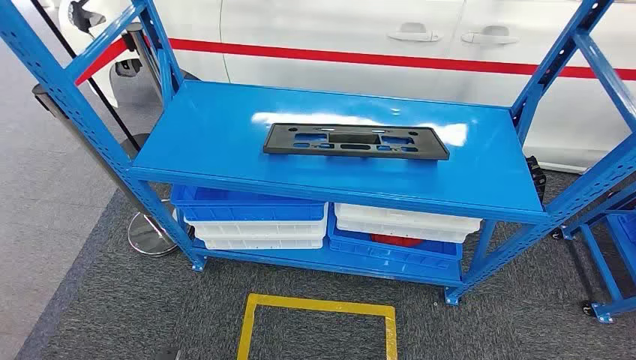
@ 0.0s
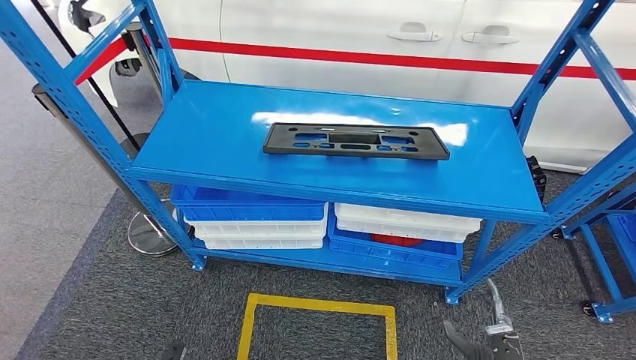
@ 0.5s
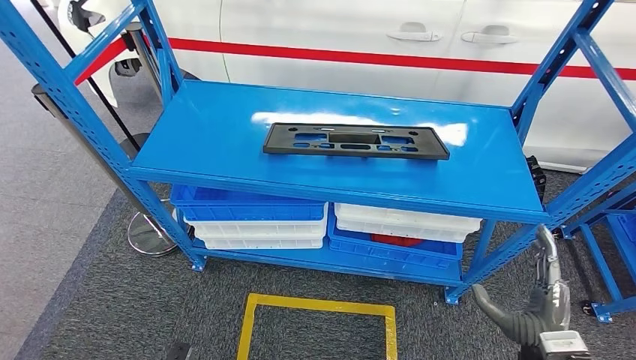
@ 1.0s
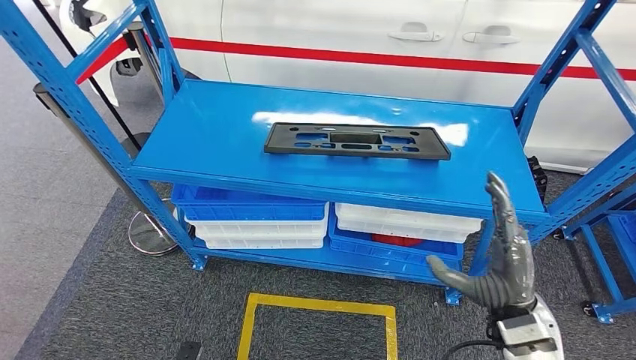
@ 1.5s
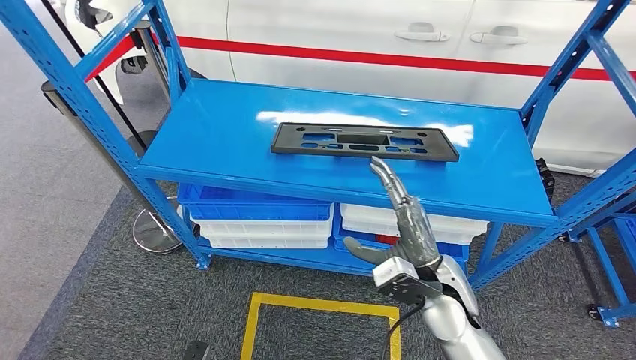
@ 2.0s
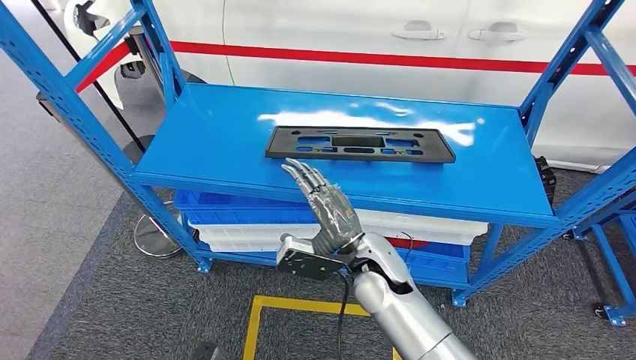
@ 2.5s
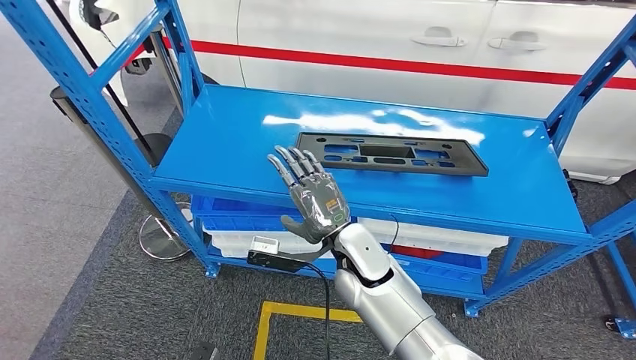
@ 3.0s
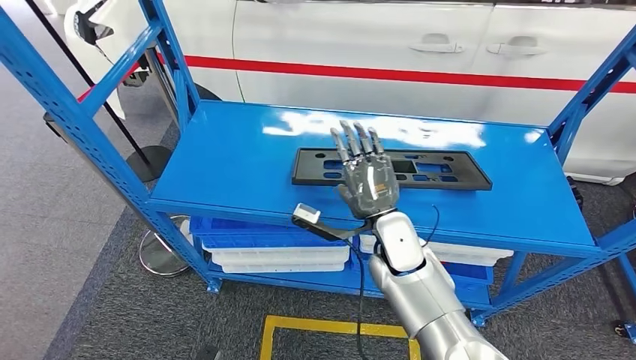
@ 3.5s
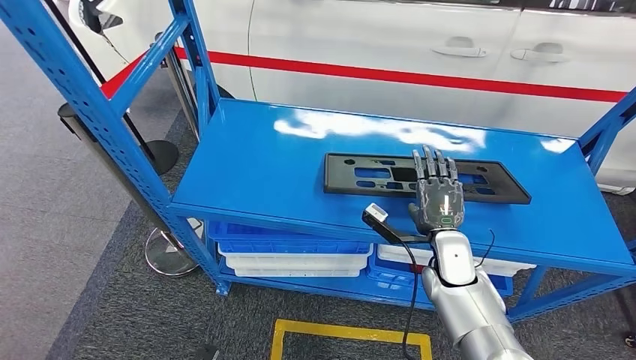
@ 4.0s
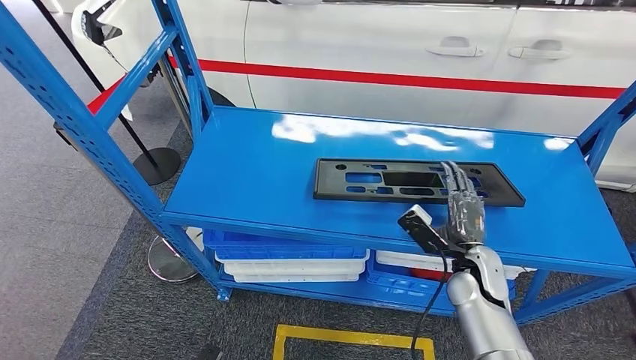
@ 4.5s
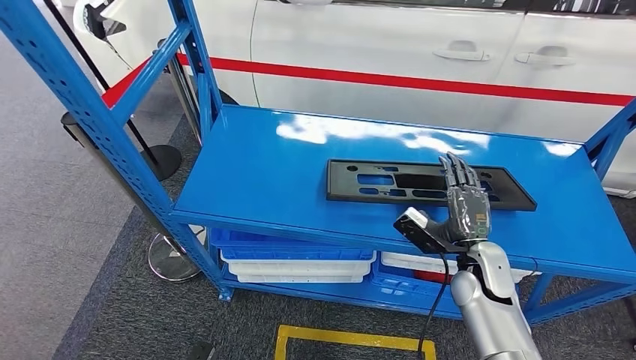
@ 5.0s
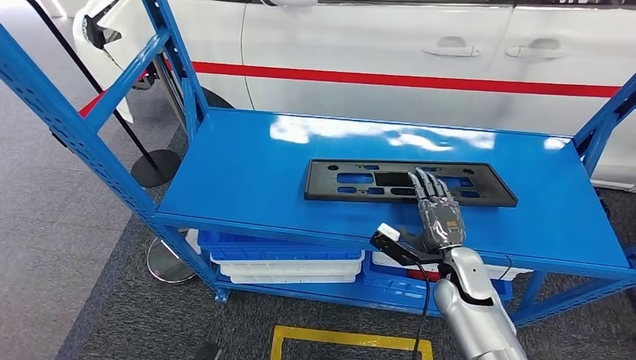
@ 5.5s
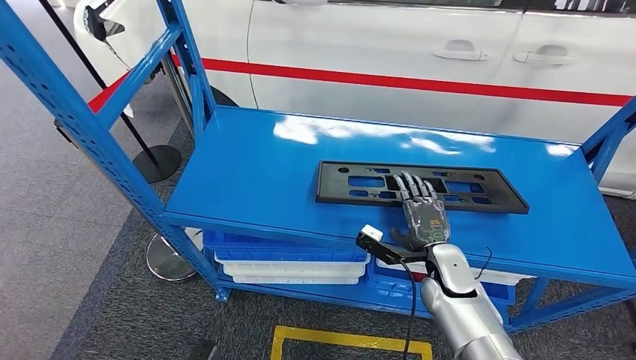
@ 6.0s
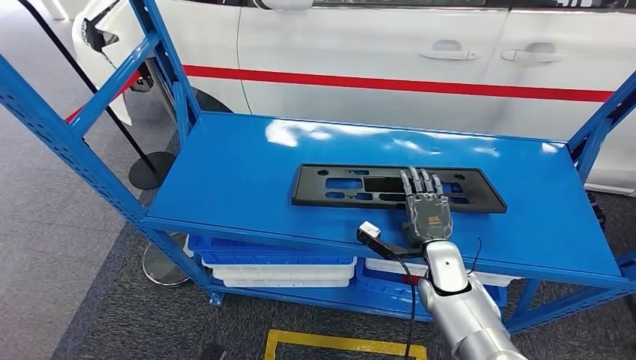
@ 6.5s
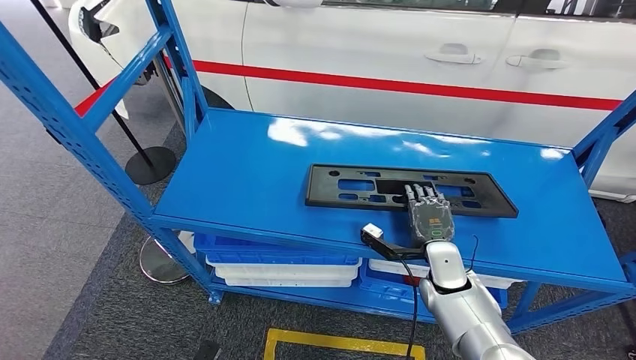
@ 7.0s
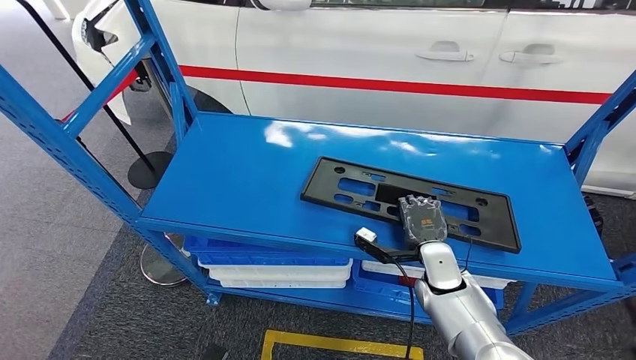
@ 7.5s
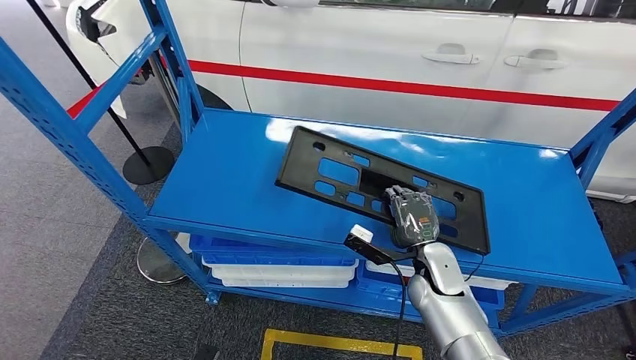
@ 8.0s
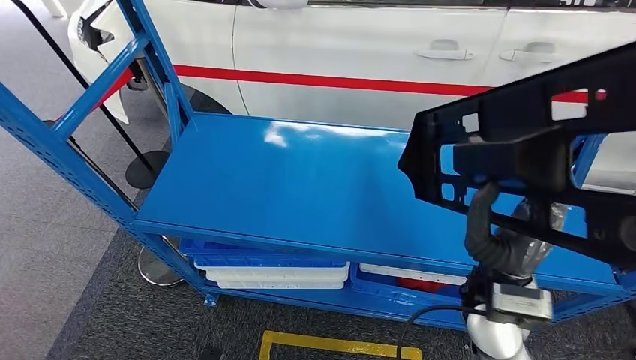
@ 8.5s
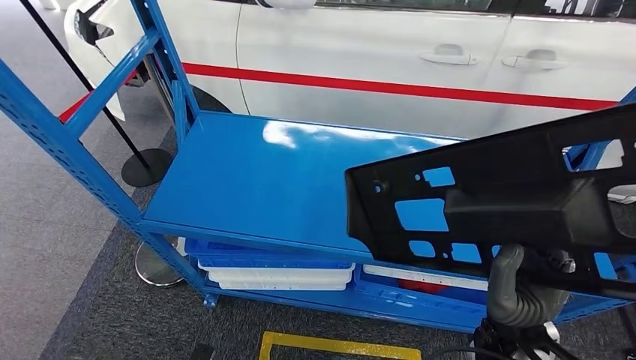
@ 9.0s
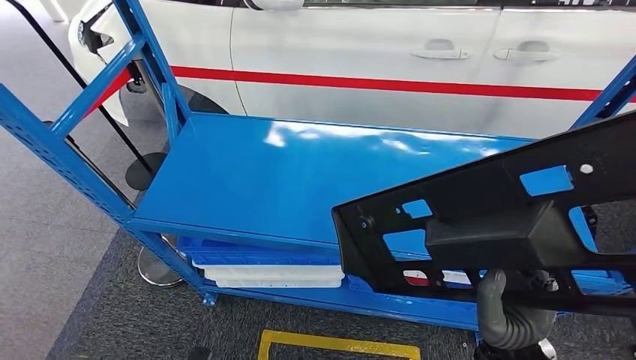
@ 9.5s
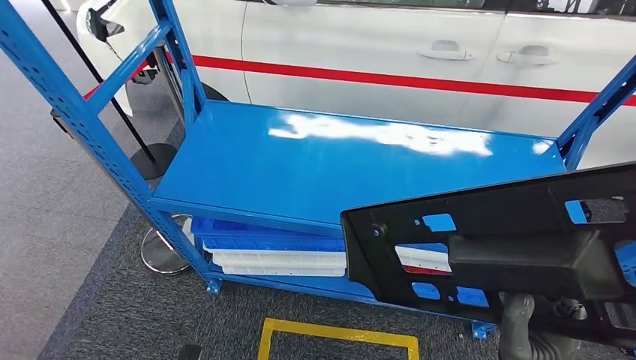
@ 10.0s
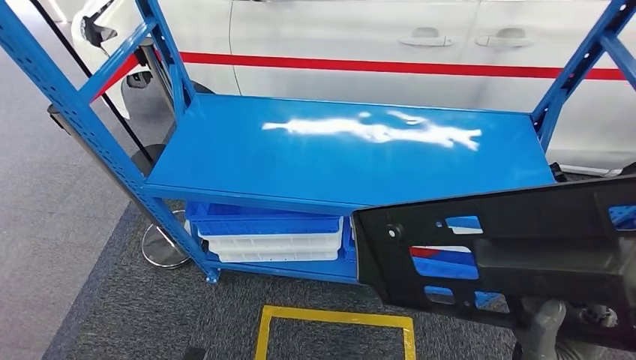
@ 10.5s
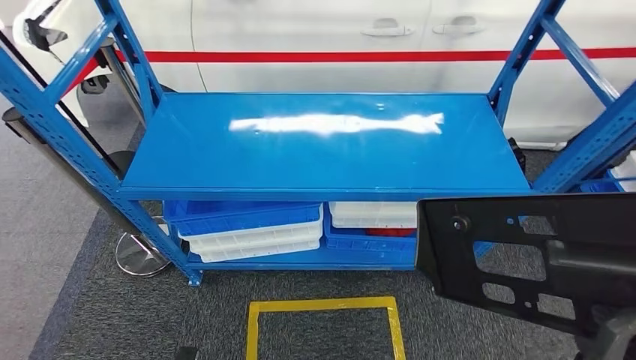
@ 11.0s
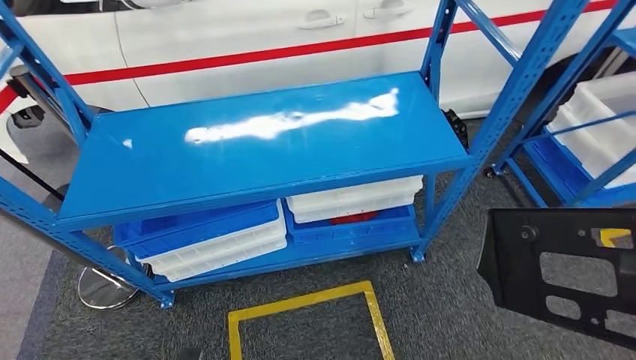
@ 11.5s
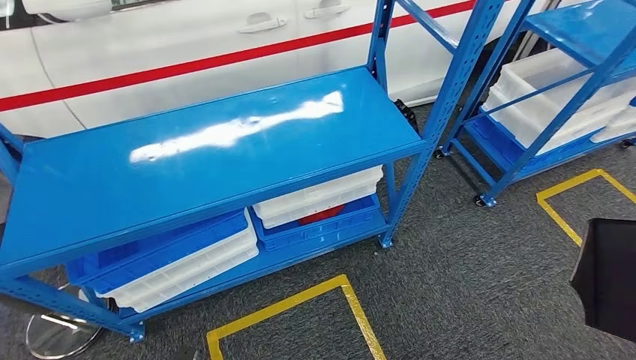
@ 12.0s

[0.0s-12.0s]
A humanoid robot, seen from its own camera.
Step, 0.0s to 10.0s: Pick up the large material from the shelf.

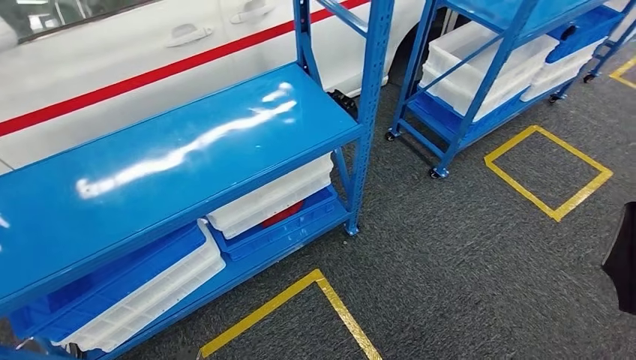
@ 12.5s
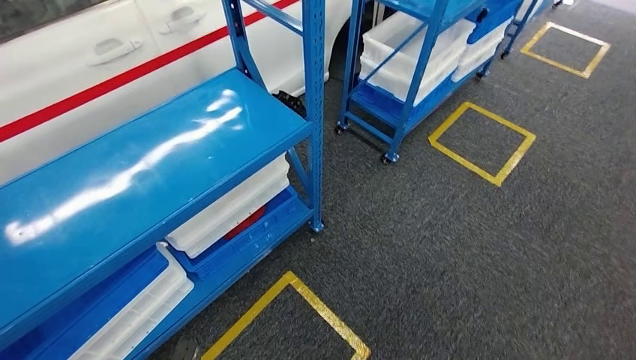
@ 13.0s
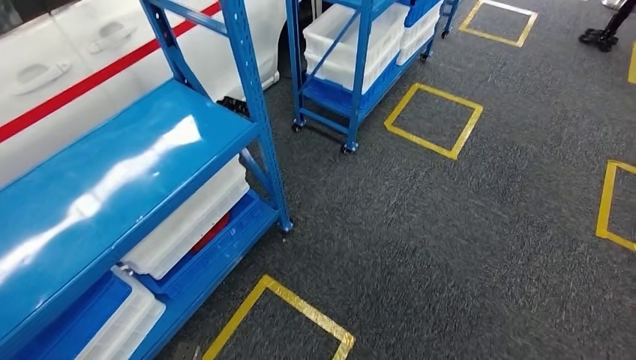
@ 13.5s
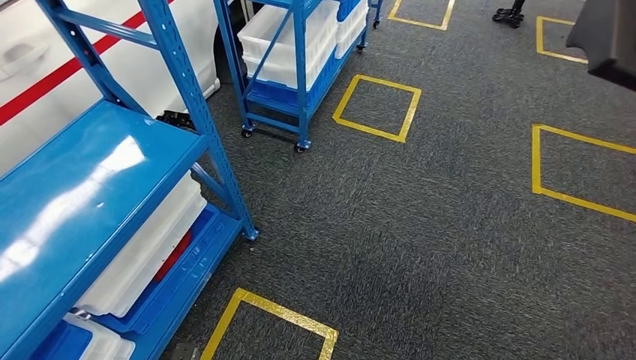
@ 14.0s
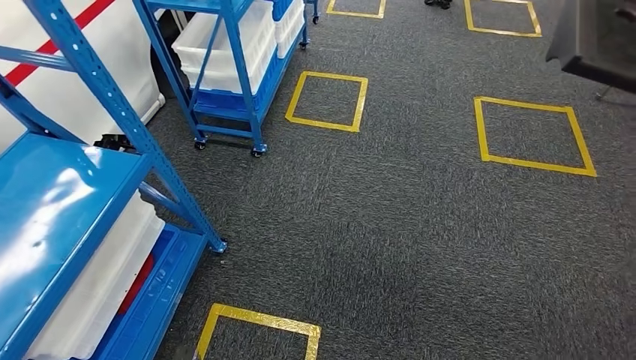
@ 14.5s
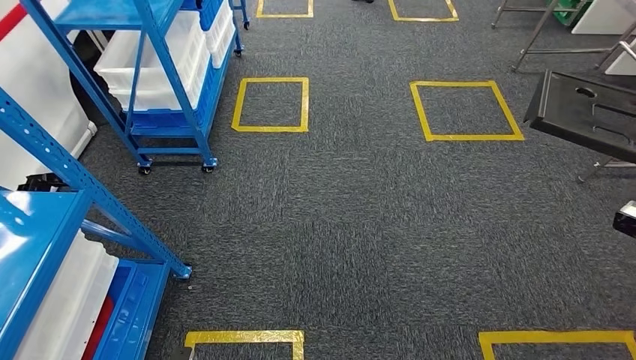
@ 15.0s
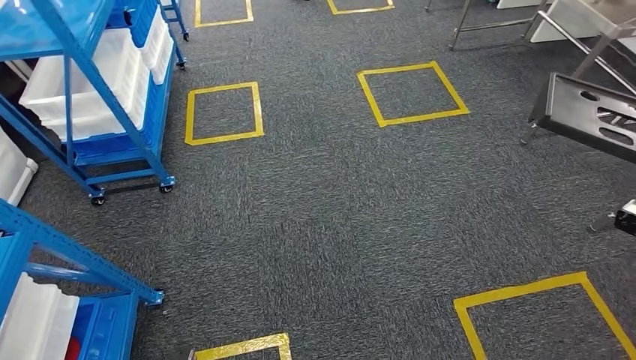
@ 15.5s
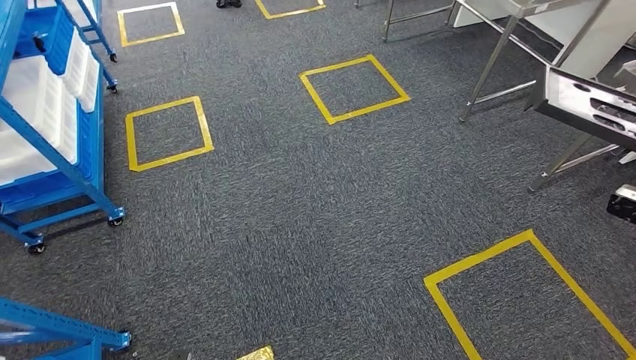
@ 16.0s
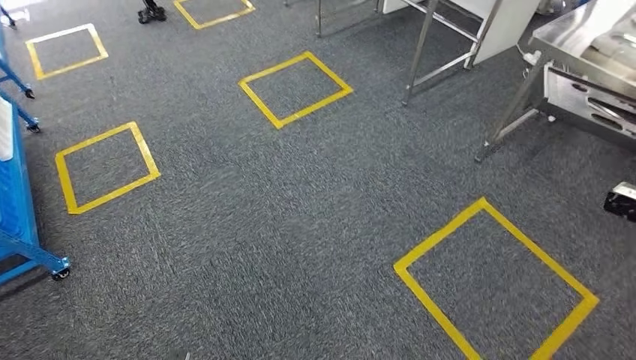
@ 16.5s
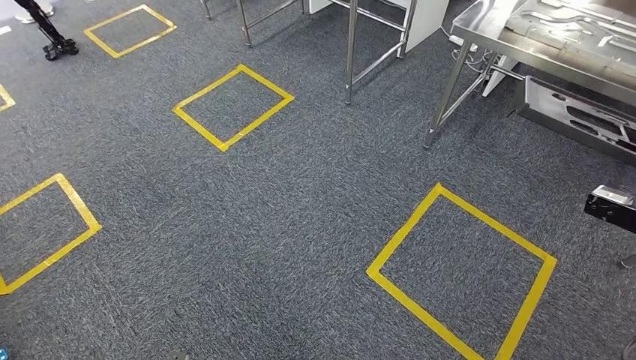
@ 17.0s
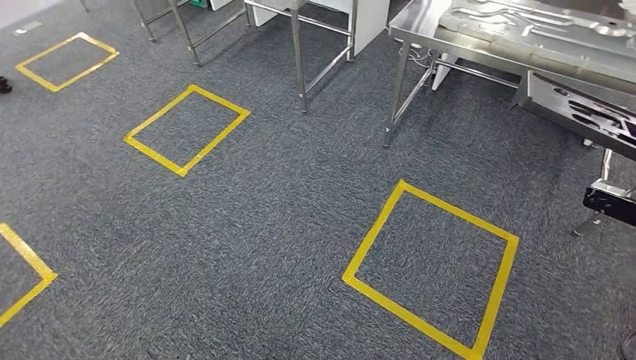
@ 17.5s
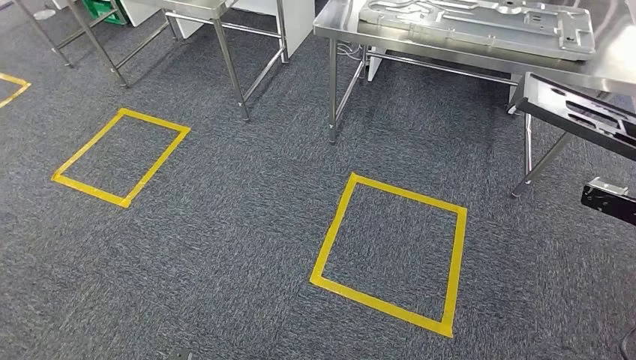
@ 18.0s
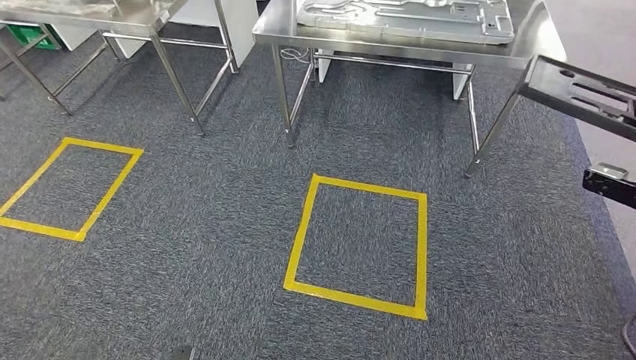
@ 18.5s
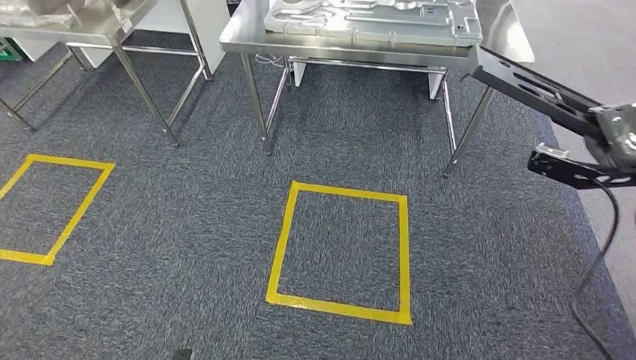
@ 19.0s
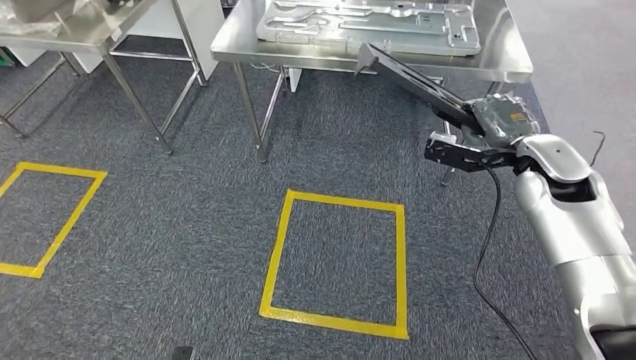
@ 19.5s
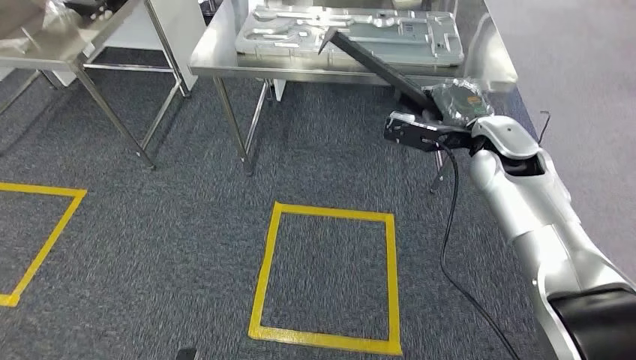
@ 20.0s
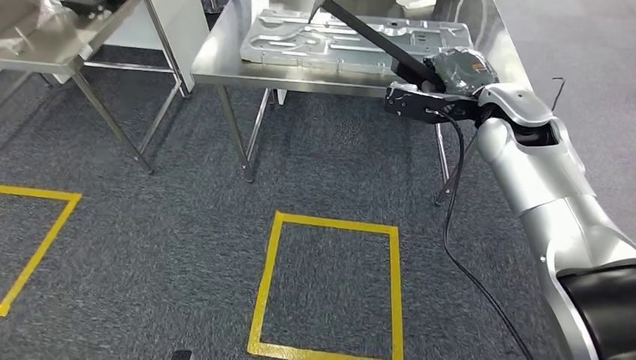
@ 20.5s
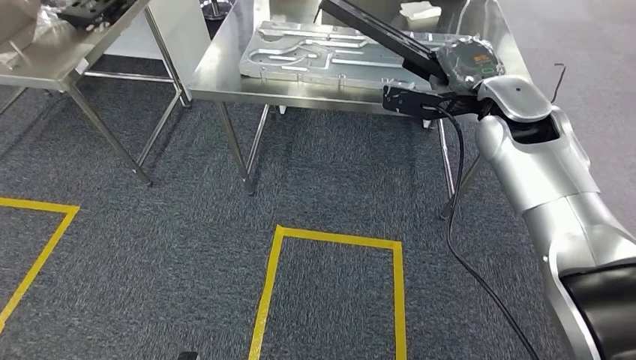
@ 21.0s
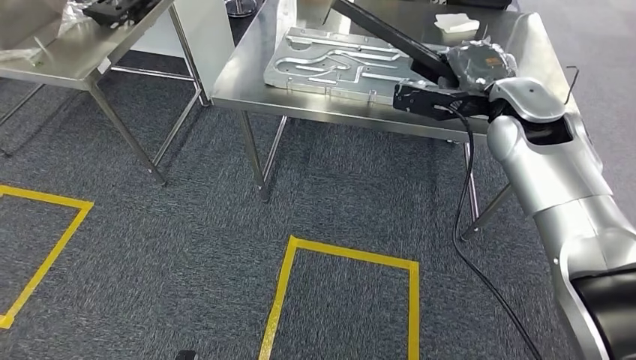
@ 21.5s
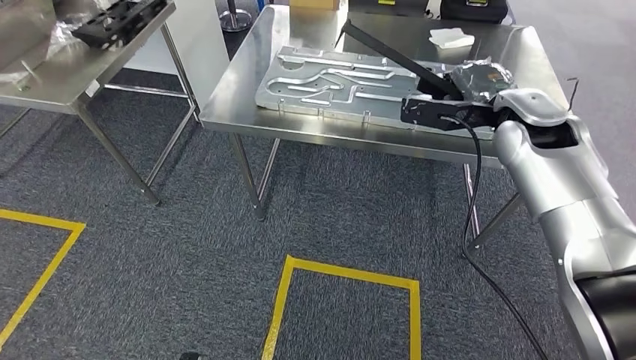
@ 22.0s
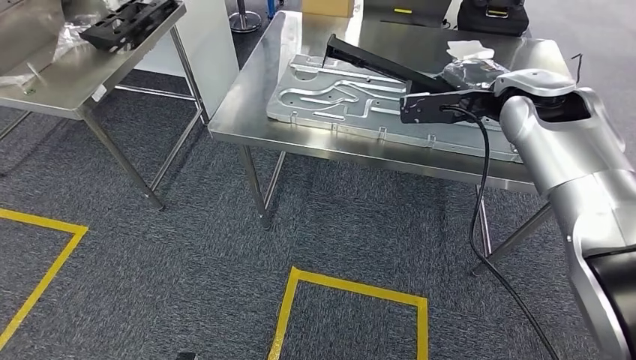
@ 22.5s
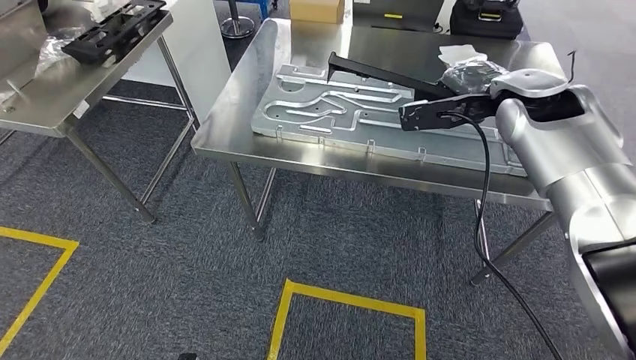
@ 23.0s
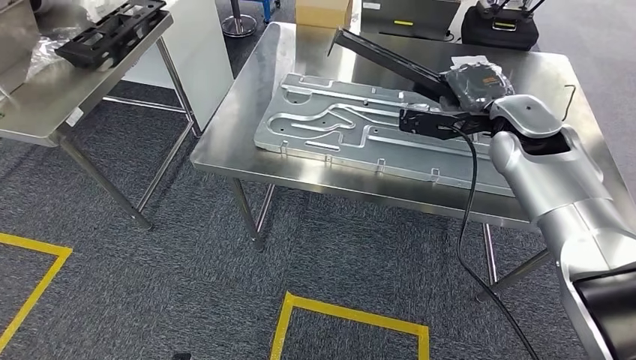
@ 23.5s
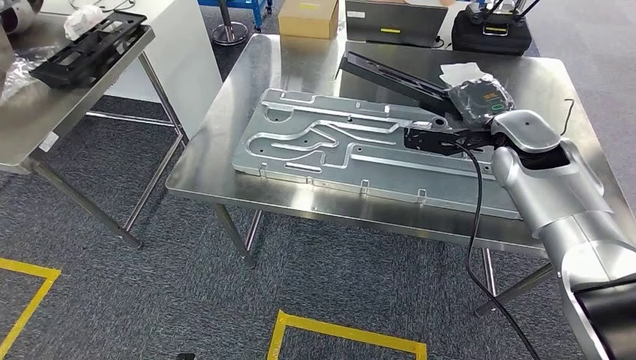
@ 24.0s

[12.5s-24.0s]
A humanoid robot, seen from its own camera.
Step, 13.5s to 21.0s: Move the large material to the workbench.
